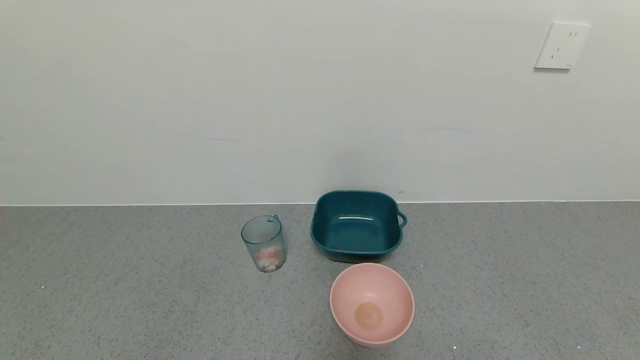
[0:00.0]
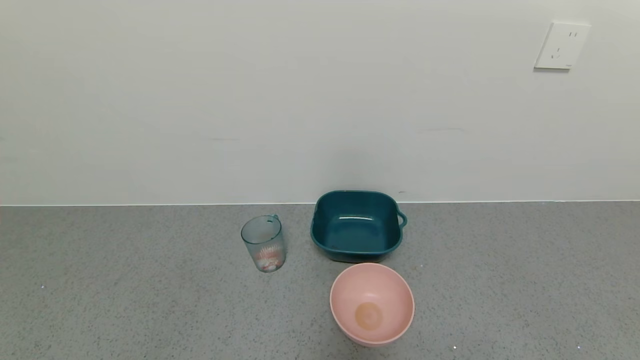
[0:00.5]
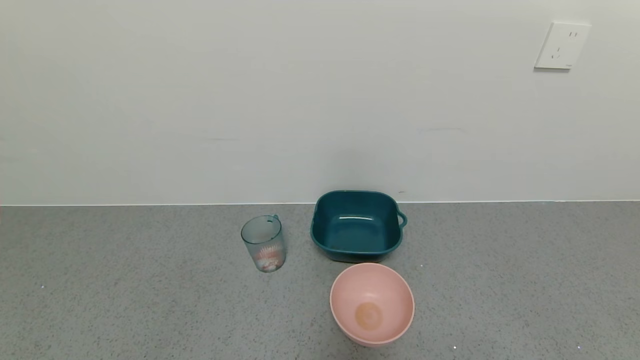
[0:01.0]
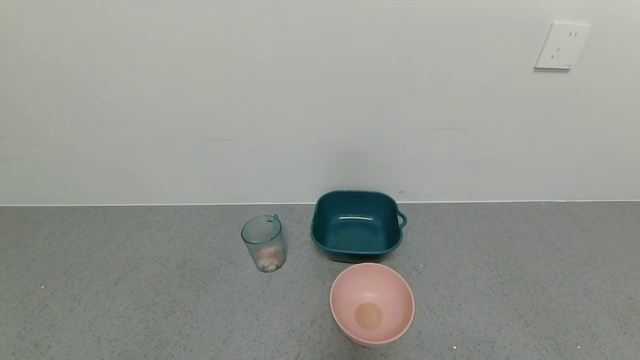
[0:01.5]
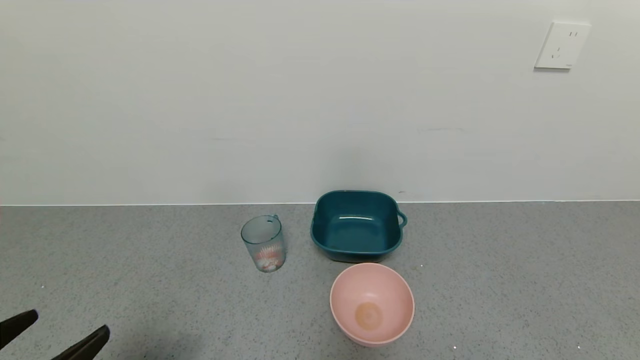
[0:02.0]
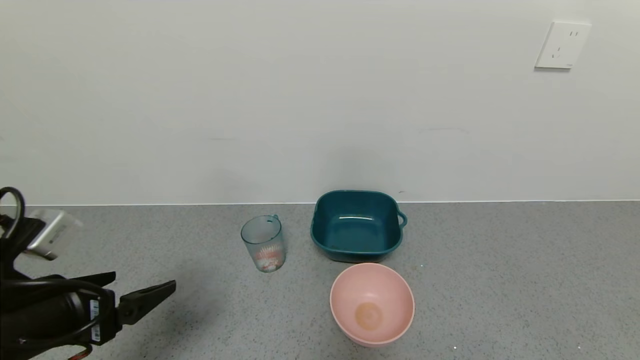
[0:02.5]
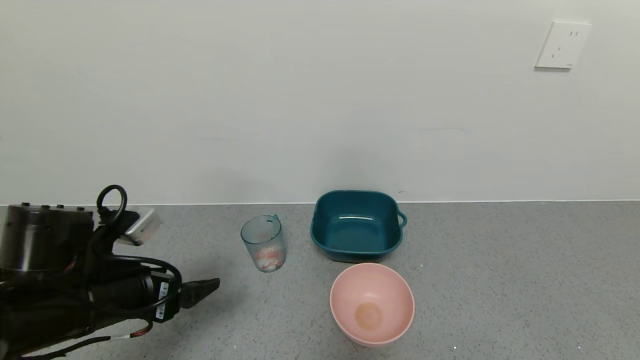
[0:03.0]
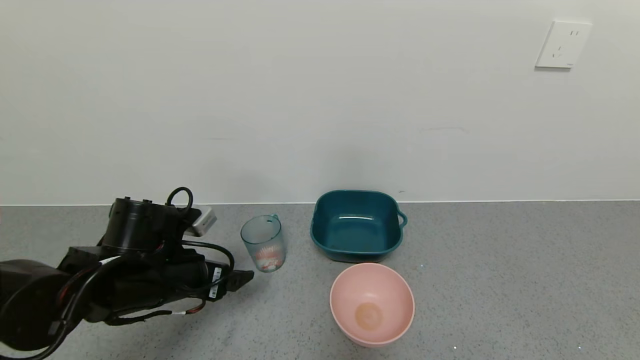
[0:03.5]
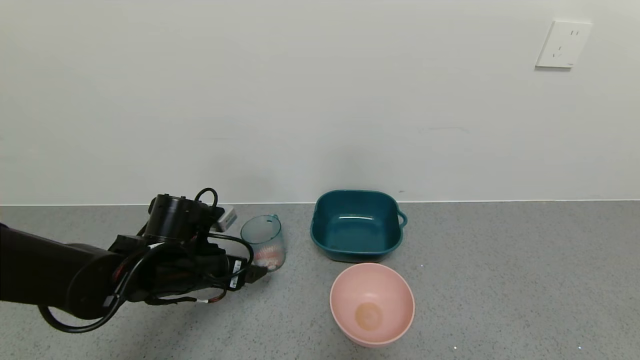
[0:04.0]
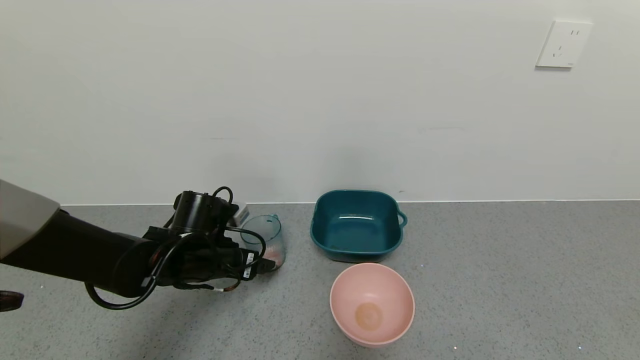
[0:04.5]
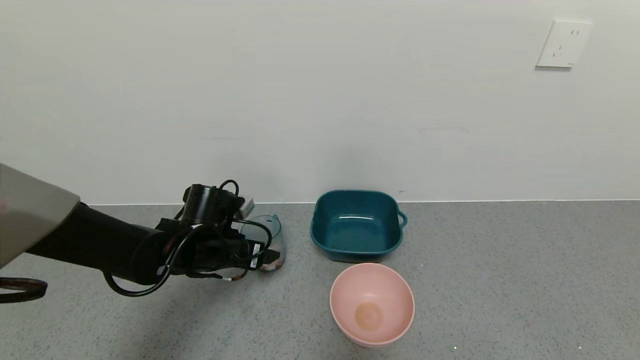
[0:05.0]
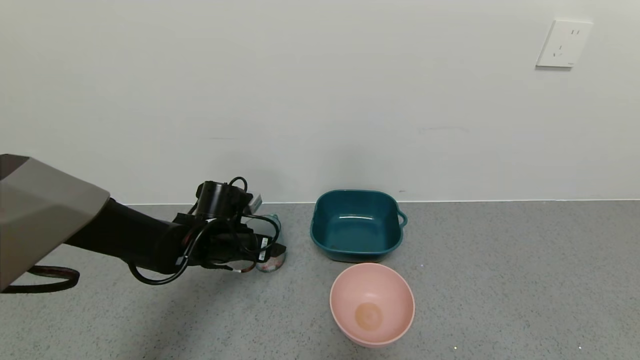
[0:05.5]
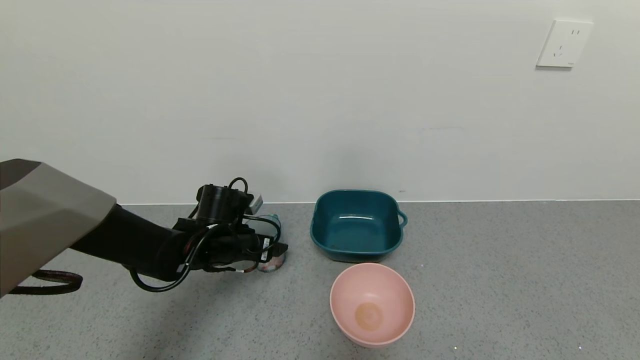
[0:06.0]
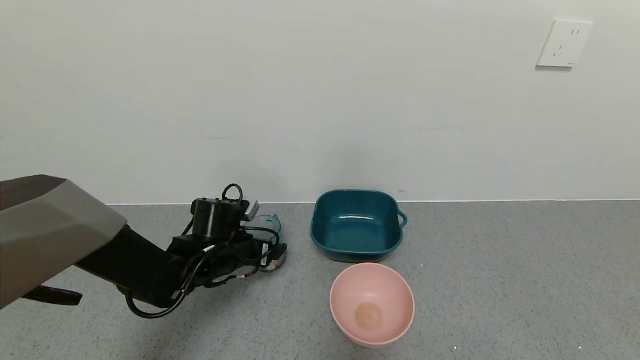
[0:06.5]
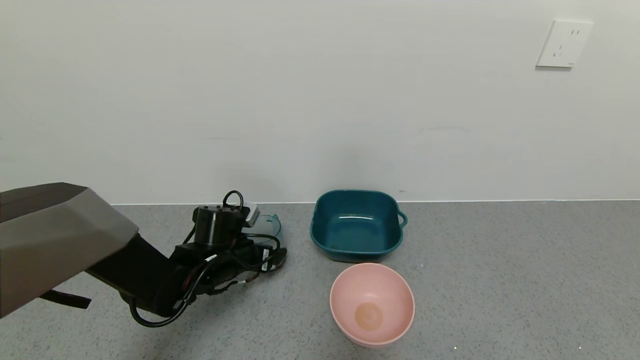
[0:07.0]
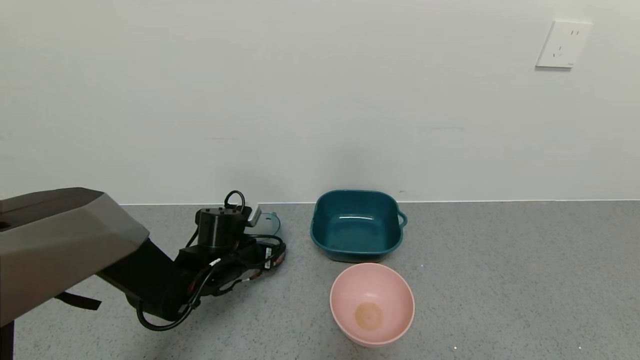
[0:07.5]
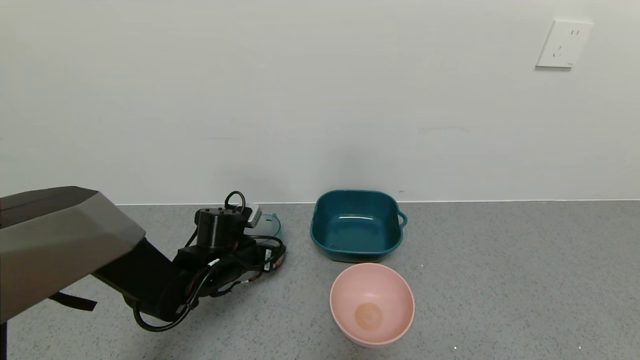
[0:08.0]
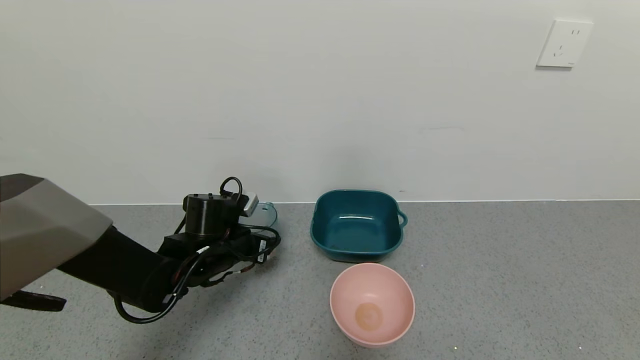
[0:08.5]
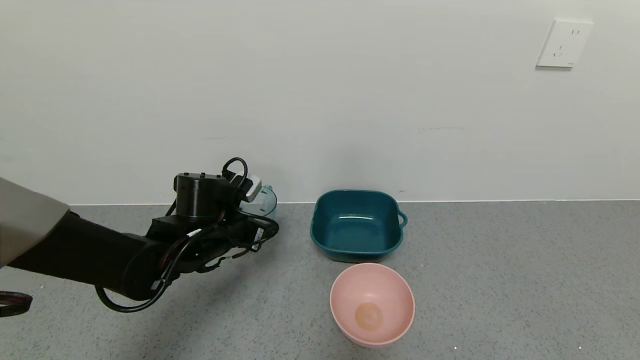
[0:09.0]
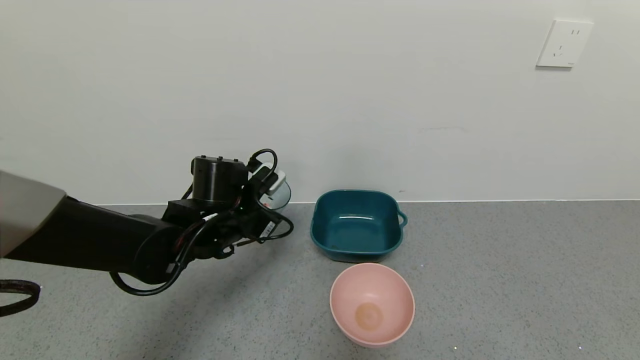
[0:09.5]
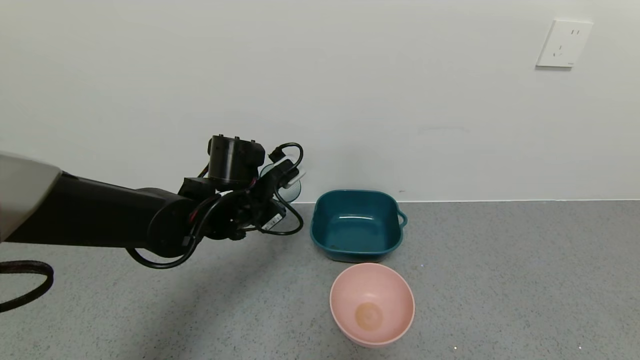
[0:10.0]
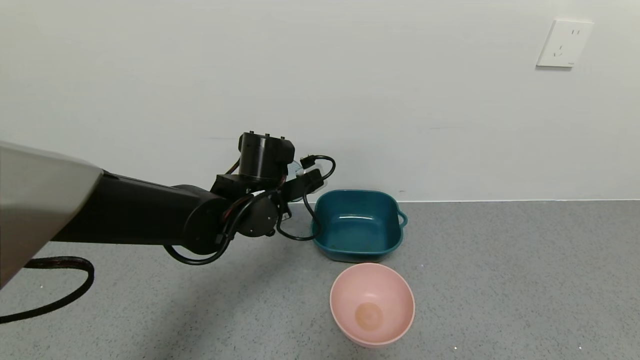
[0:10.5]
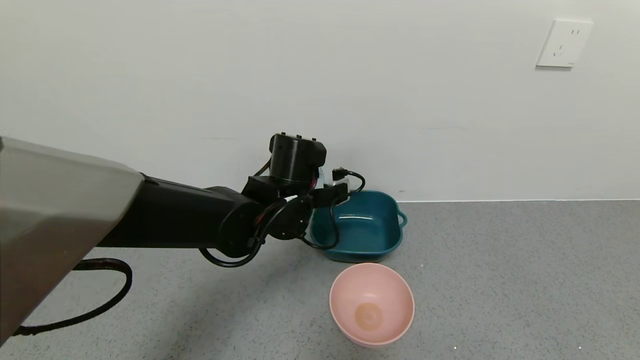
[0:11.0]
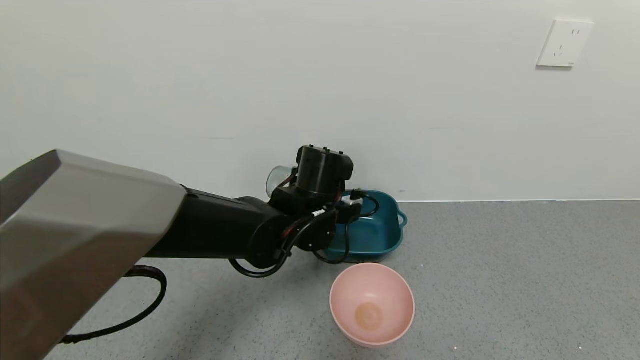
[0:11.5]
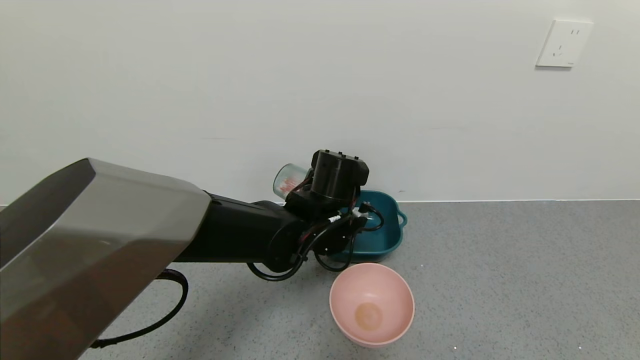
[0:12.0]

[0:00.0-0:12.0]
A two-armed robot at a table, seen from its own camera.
Task of the whole recording: use a gripper to pick up the cup and pour the solid into a bowl or tray.
Step, 0:00.0 to 0:08.0: Grasp the glass of shrimp with the left gripper.
0:00.0 to 0:02.0: The left gripper moves upward and forward, some 15 cm.
0:02.0 to 0:04.0: The left gripper goes roughly 25 cm forward.
0:04.0 to 0:06.0: The left gripper heads forward, covering about 5 cm.
0:06.0 to 0:08.0: The left gripper closes its fingers.
0:08.0 to 0:10.0: The left gripper moves upward, about 10 cm.
0:10.0 to 0:12.0: The left gripper shifts some 10 cm to the right.

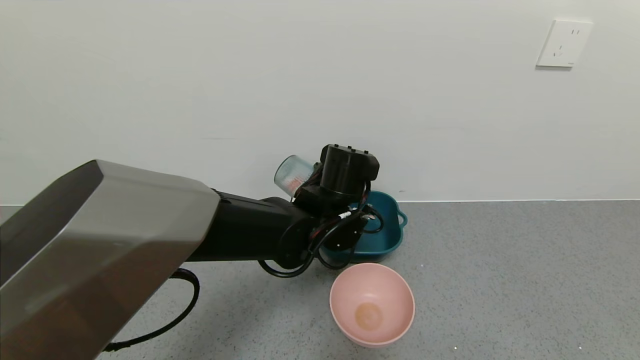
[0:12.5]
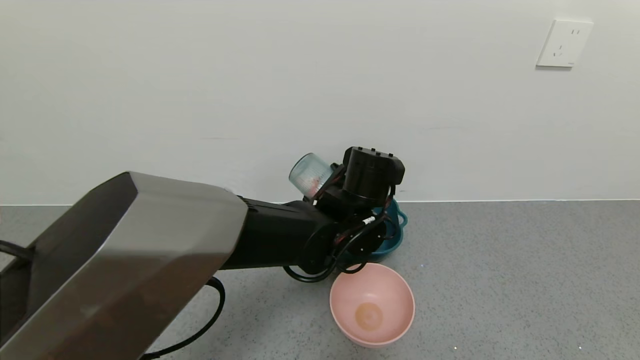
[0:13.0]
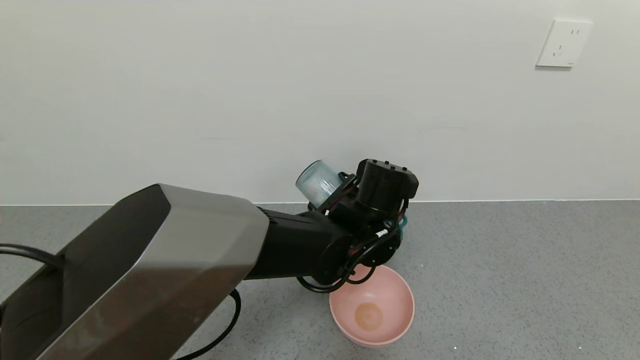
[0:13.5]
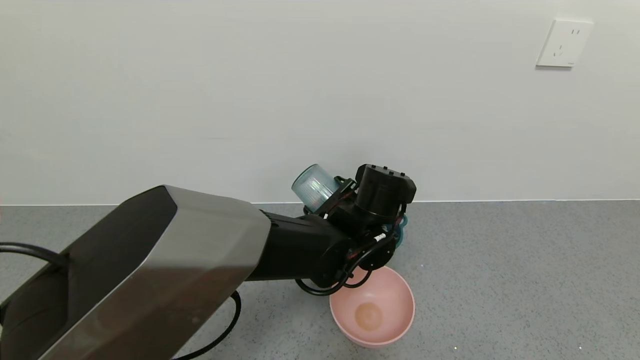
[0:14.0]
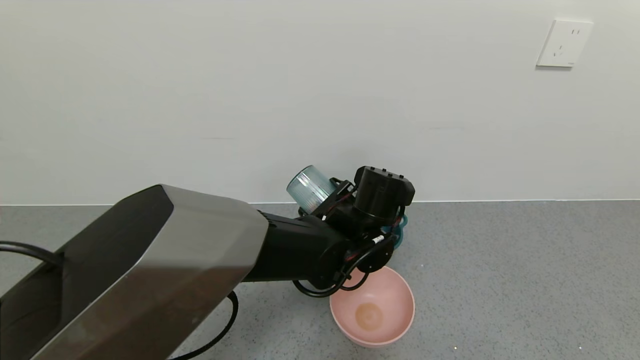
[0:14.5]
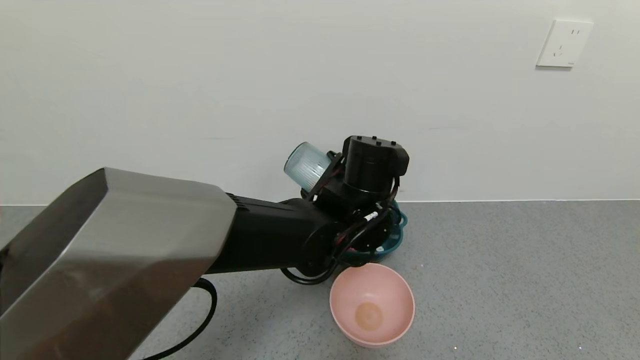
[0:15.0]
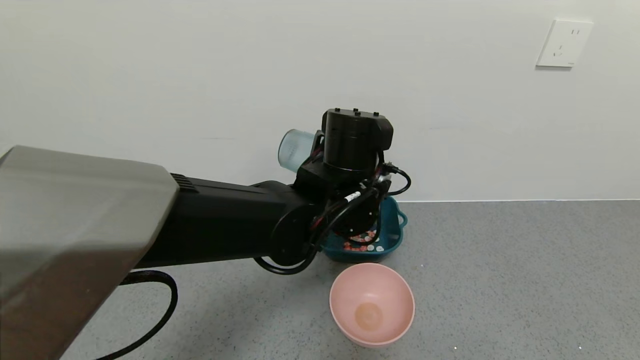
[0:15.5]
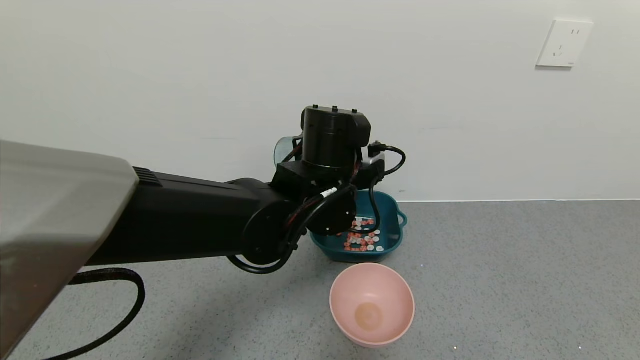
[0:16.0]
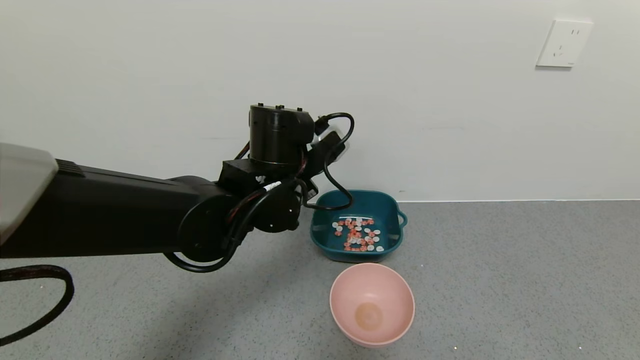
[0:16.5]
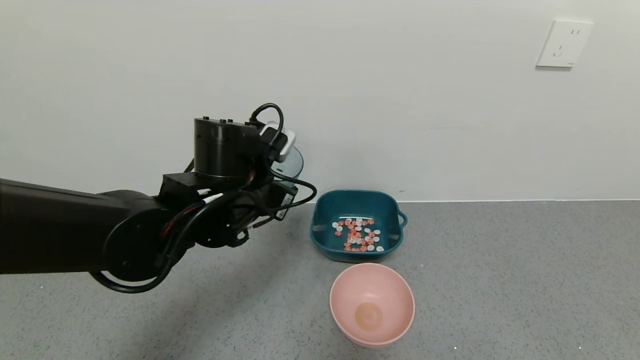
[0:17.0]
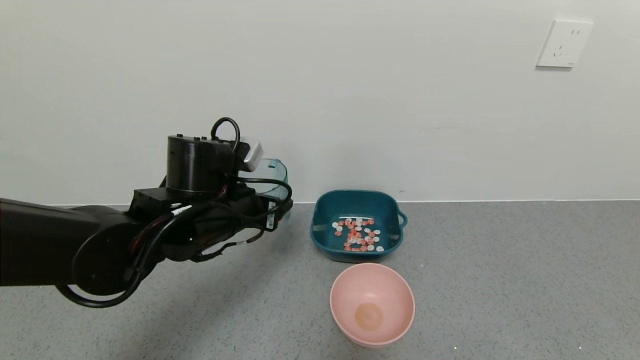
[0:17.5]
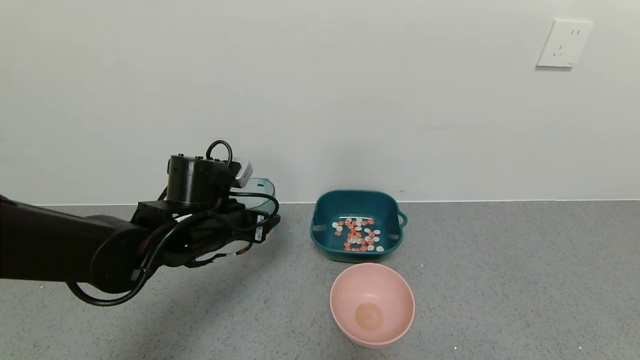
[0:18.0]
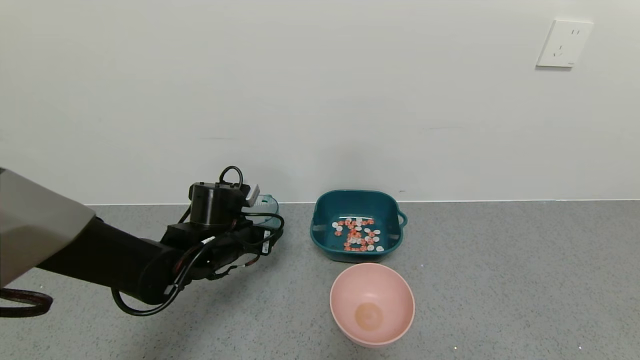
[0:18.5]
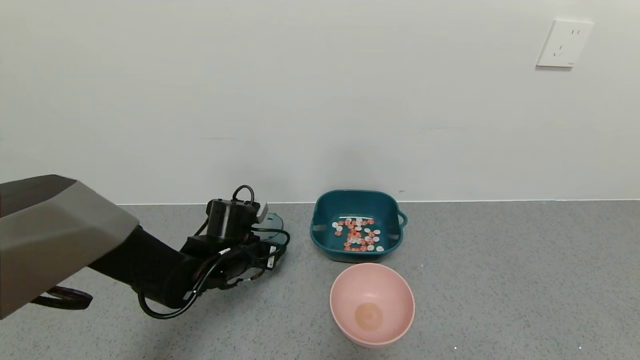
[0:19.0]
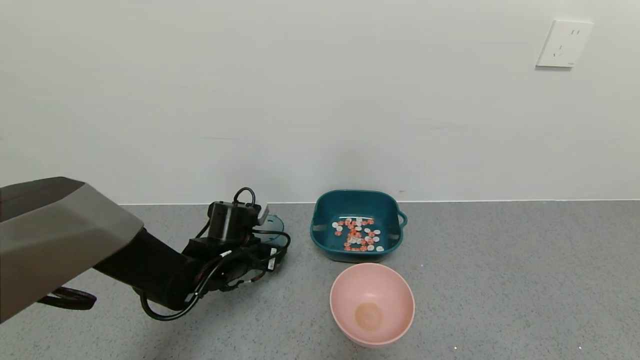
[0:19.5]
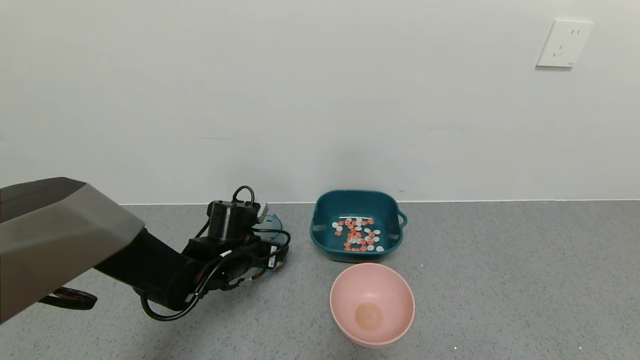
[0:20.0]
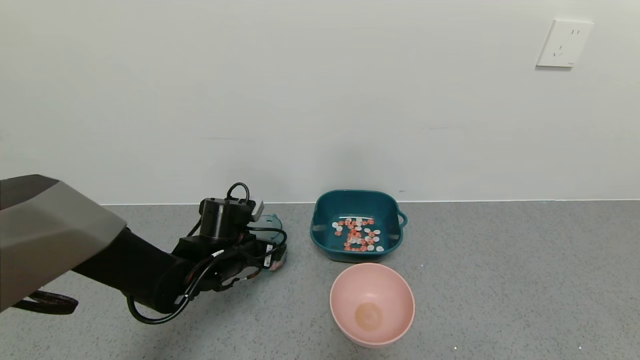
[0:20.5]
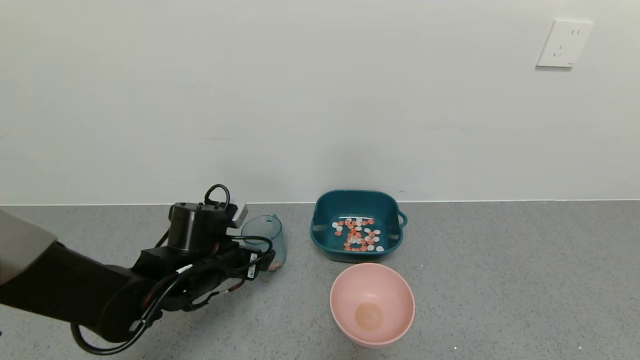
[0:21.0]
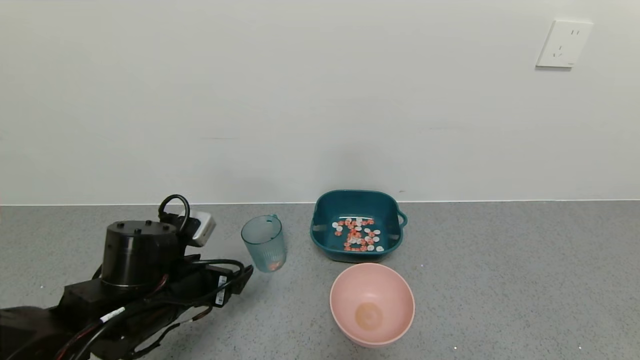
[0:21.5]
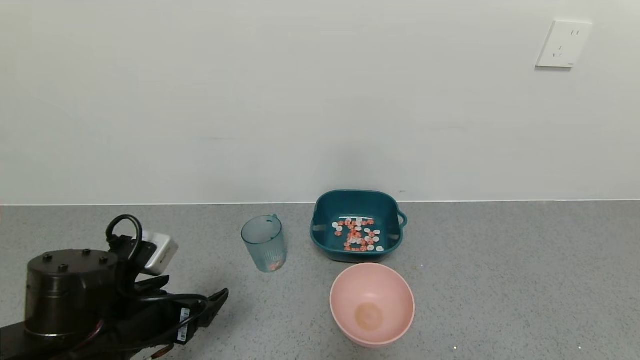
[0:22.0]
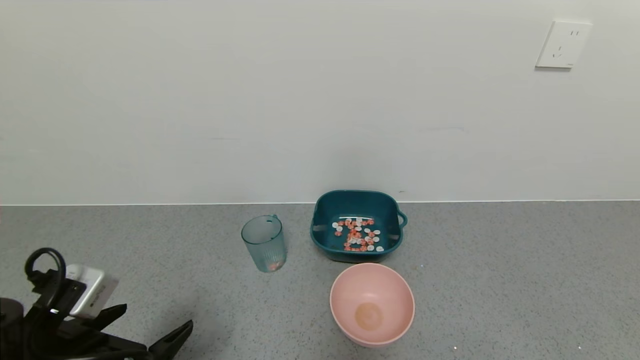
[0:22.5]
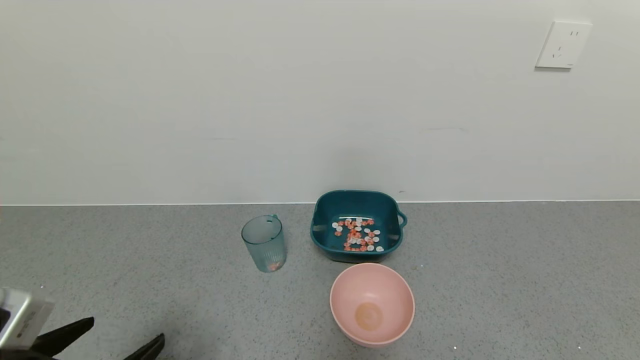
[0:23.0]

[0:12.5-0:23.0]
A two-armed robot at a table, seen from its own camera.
Task of the whole recording: use a gripper to pick up the cup and pour the solid into a bowl or tray.
Step, 0:12.5 to 0:15.5: Pour the shrimp beans into the green bowl with the left gripper.
Step, 0:16.0 to 0:21.0: Place the glass cup with the left gripper.
0:12.5 to 0:14.5: The grippers move only a little.
0:14.5 to 0:16.5: The left gripper goes about 10 cm to the left and upward.
0:16.5 to 0:19.0: The left gripper moves downward and to the left, roughly 20 cm.
0:19.0 to 0:21.0: The left gripper moves backward, some 5 cm, and opens up.
0:21.0 to 0:23.0: The left gripper goes about 20 cm backward.
